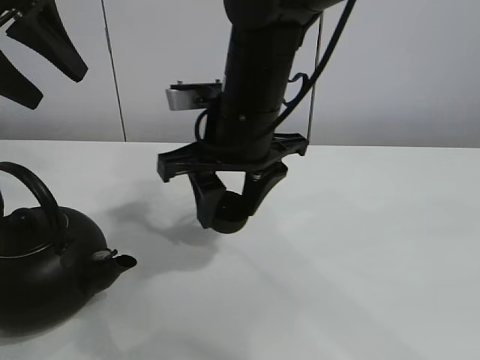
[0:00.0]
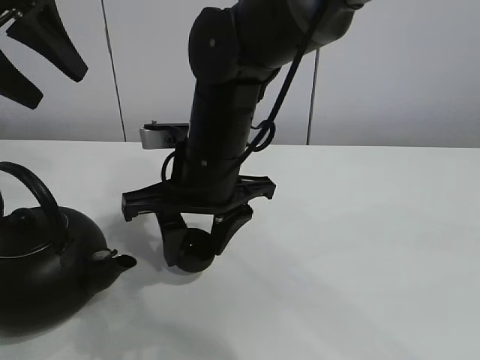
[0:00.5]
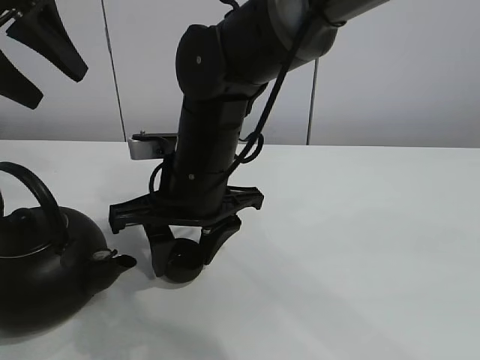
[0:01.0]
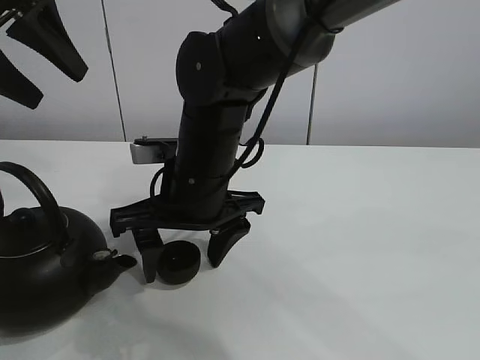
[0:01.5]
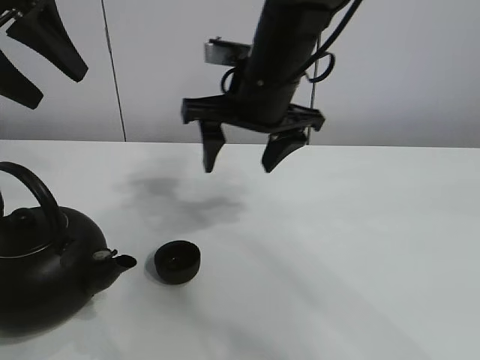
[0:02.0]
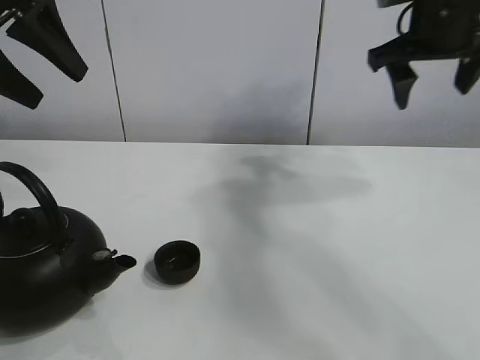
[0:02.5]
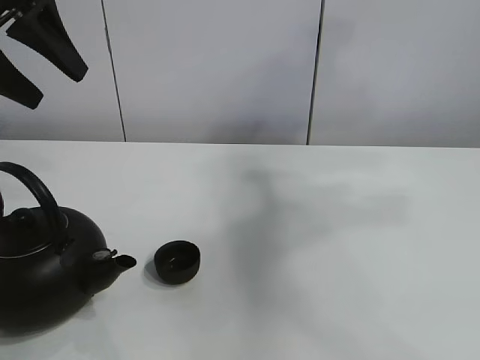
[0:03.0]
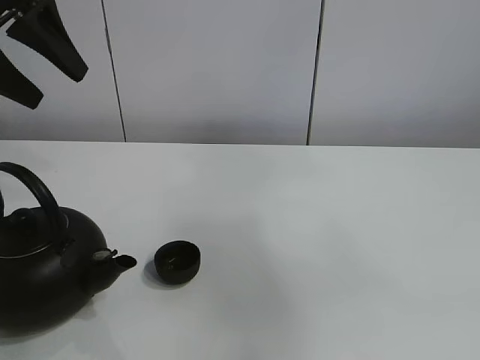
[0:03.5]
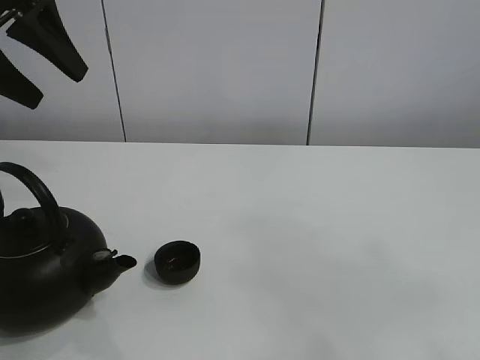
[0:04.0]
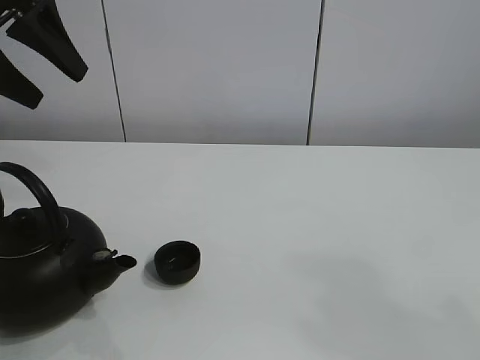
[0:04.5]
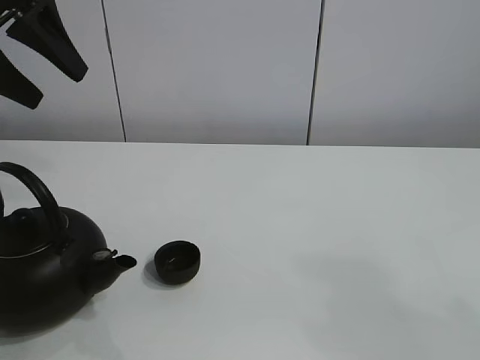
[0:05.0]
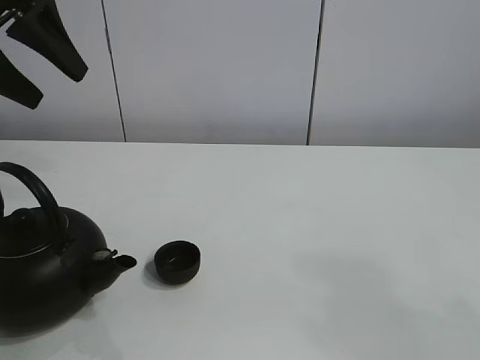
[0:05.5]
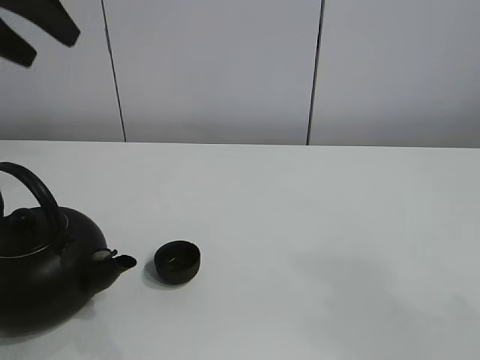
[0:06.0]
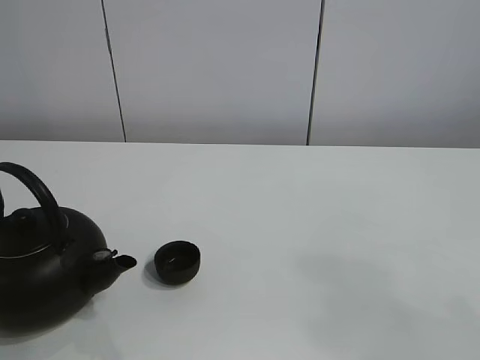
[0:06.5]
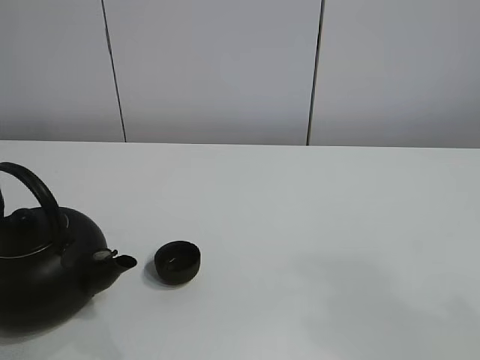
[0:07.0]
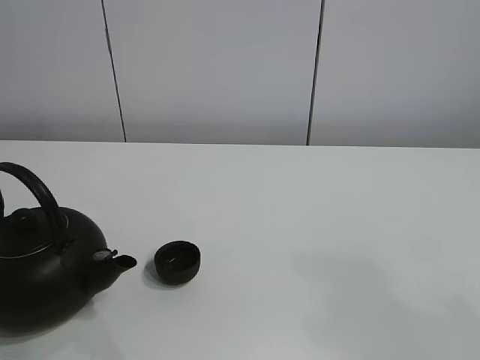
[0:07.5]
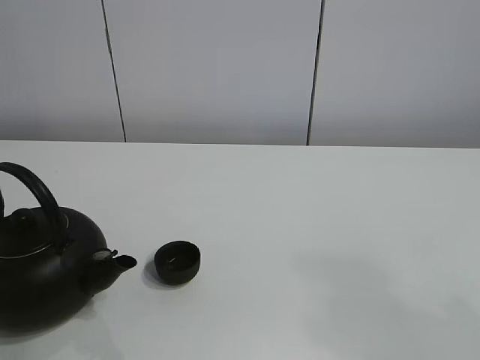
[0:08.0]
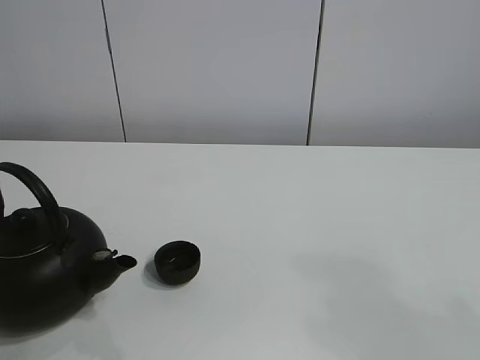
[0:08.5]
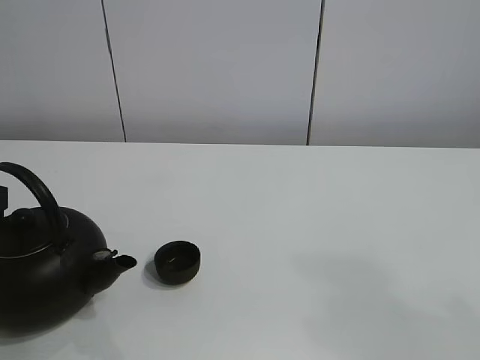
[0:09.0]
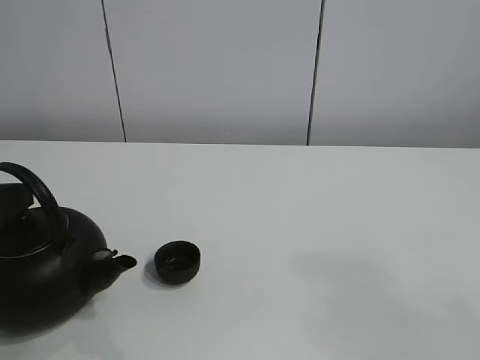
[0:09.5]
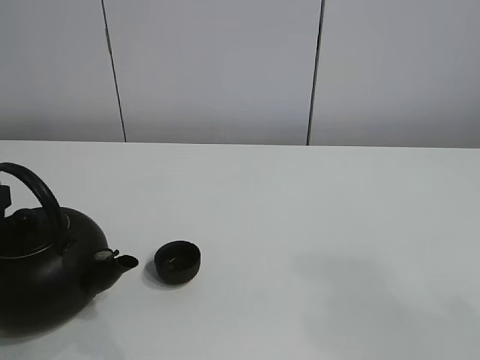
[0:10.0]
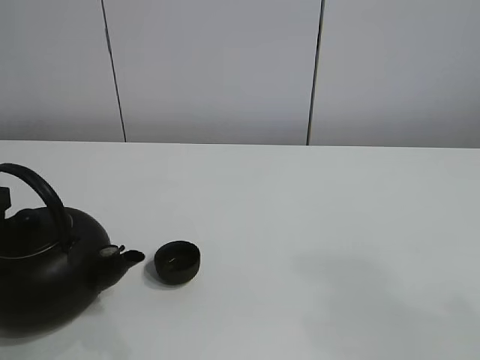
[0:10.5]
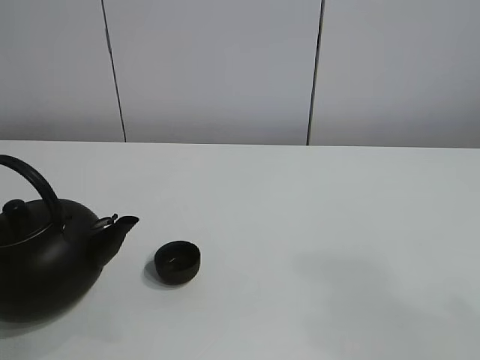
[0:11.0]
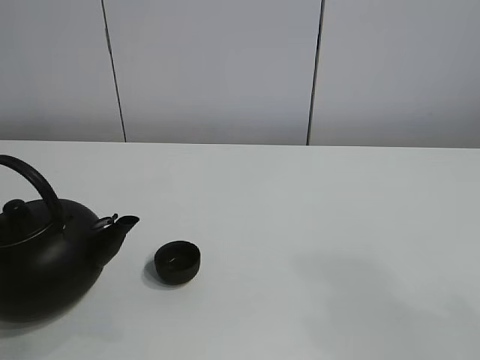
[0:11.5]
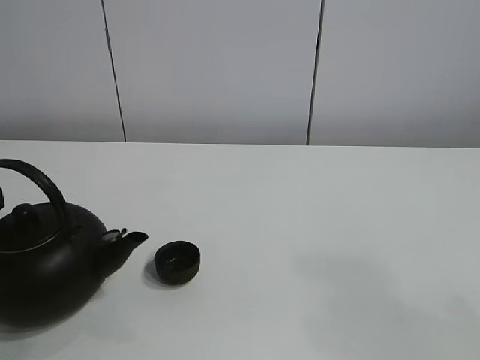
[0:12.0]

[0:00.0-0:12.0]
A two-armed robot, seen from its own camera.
Task of the whole recording: pour tea into the teacup.
Step, 0:00.0 to 0:01.0: Place the teacup in the center of view with the right gripper.
0:00.0 to 0:02.0: The right gripper reaches approximately 5 cm downward, then returns, and opens up.
0:02.0 to 0:04.0: The right gripper heads backward and to the right, covering approximately 50 cm.
0:06.0 to 0:08.0: The left gripper travels backward and downward by approximately 20 cm.
0:10.0 to 0:12.0: The grippers stay close to where they were, moving slightly.

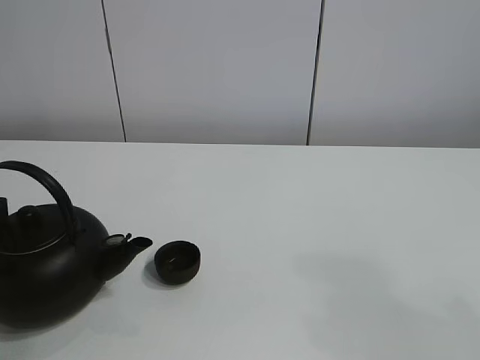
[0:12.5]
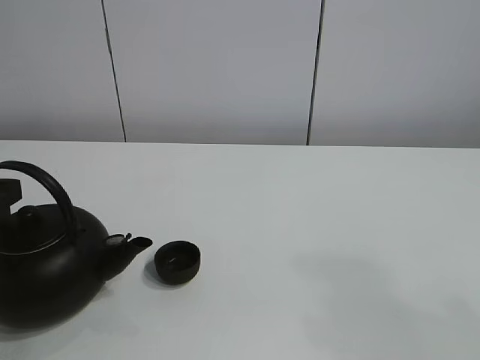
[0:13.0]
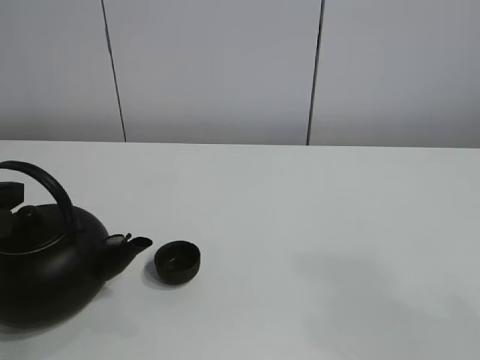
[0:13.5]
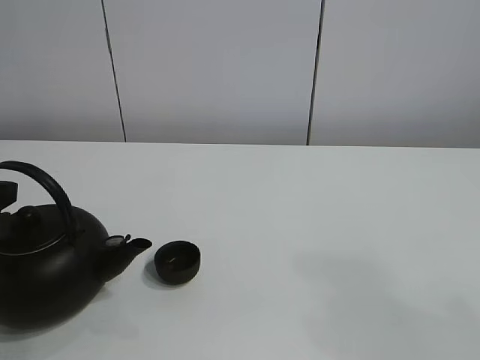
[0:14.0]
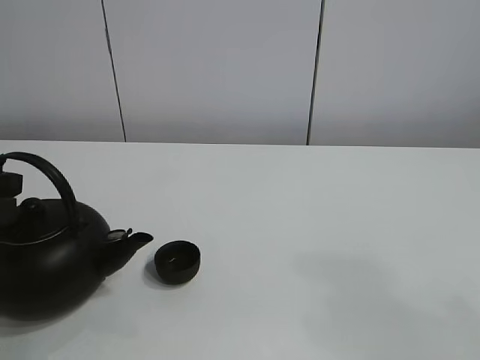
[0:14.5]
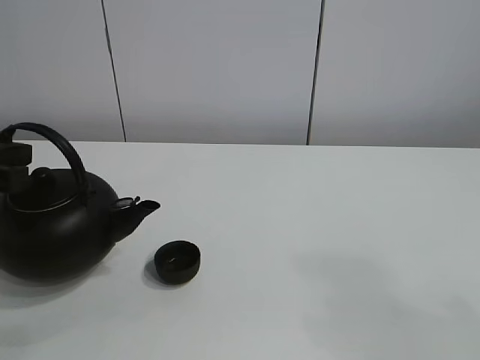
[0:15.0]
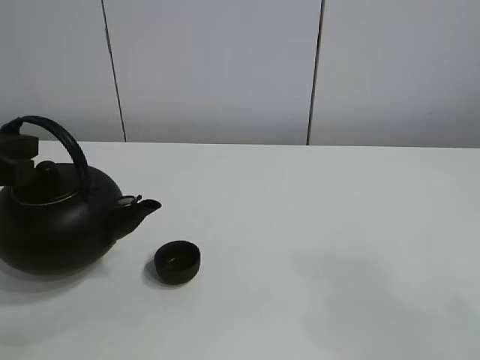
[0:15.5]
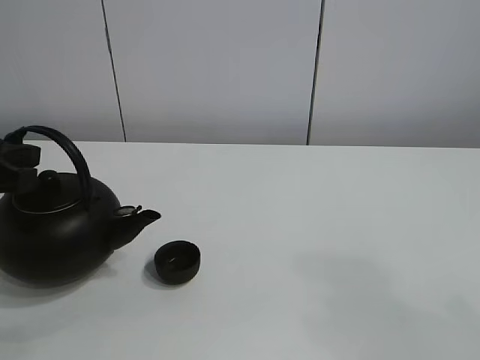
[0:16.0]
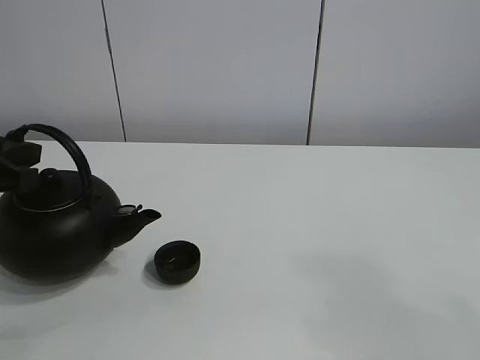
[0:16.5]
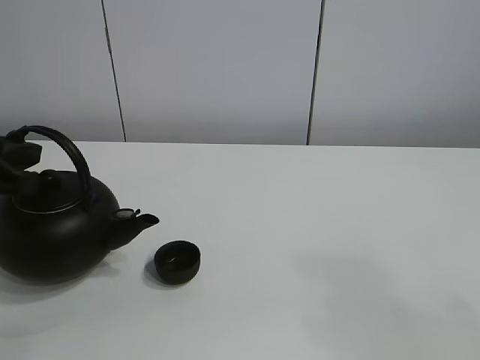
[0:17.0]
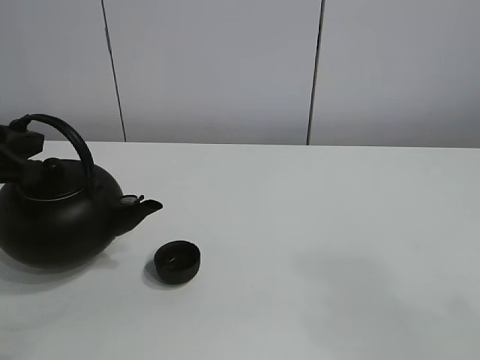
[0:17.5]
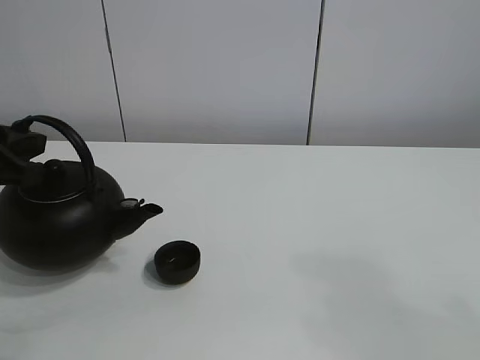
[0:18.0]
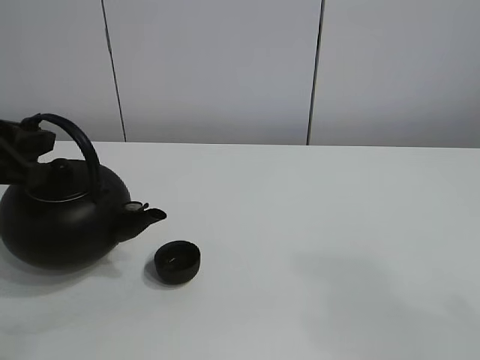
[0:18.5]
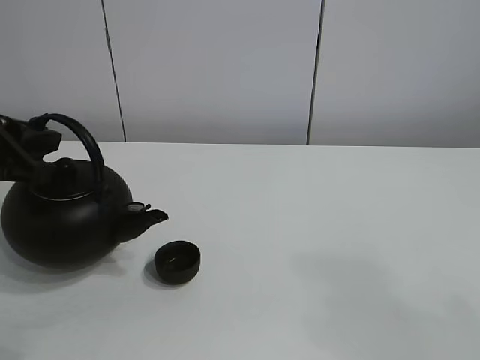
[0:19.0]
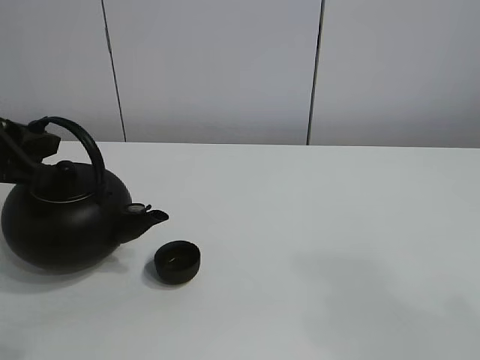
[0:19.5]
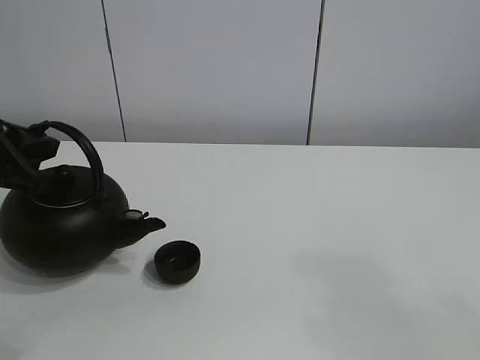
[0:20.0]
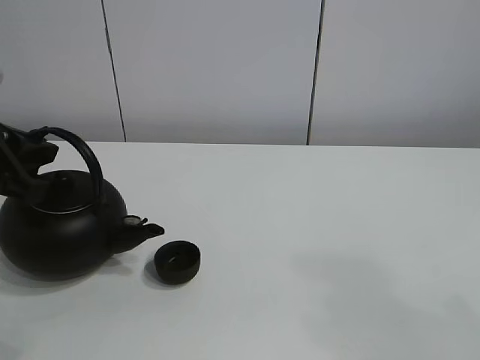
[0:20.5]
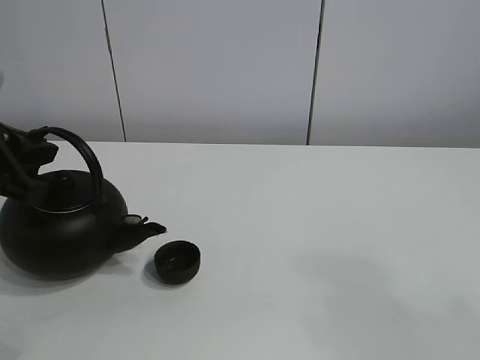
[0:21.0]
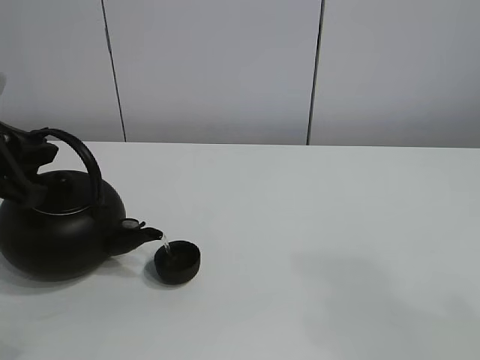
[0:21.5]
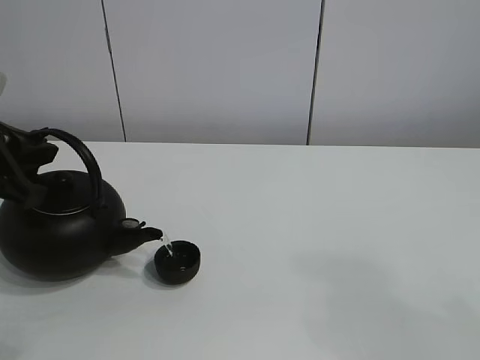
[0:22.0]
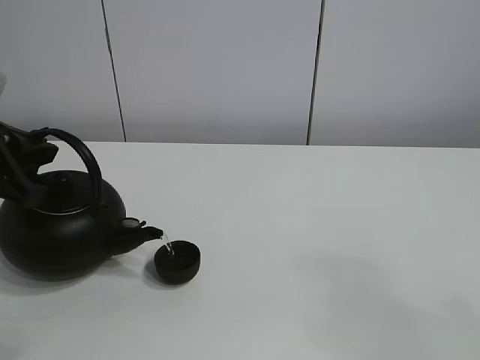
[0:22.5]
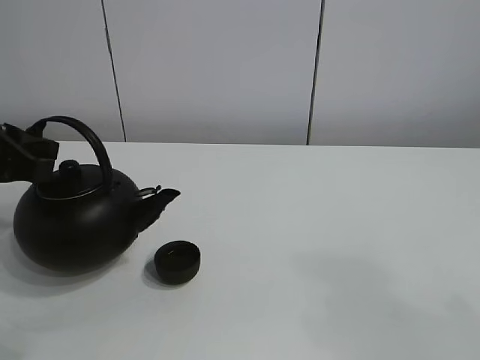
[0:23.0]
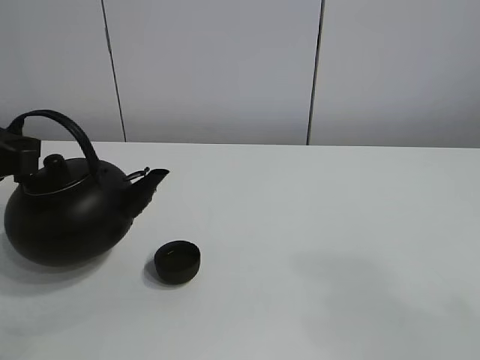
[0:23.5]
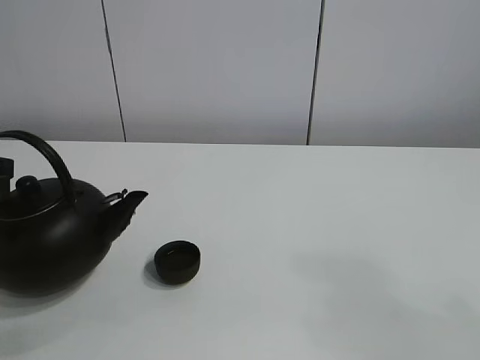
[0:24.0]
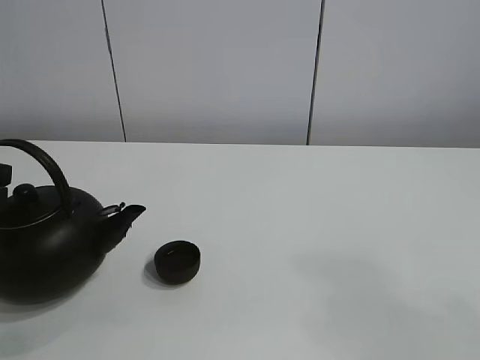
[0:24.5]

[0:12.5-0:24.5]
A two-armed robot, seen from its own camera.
Task of the whole recording: pour tea into the teacup.
Step, 0:12.5 to 0:14.5: Pick up the teapot with the left gripper.
Step, 0:15.0 to 0:22.5: Pour tea into the teacup with the left gripper.
0:12.5 to 0:14.5: The grippers make only small movements.
0:14.5 to 0:18.5: The grippers make only small movements.
0:18.5 to 0:20.5: The grippers stay close to where they were, moving slightly.
0:20.5 to 0:22.5: The two grippers keep their place.
0:22.5 to 0:24.5: The left gripper ends up roughly 5 cm from where it was.

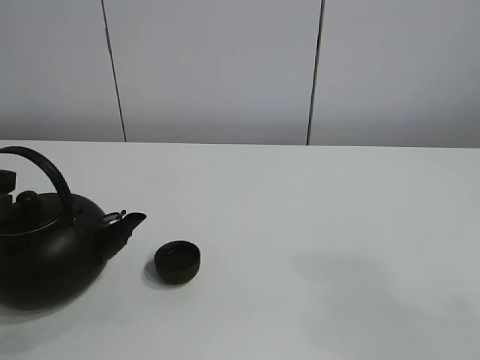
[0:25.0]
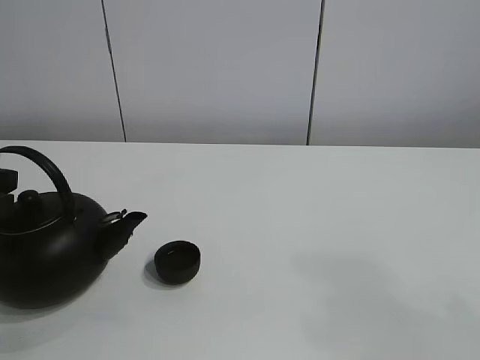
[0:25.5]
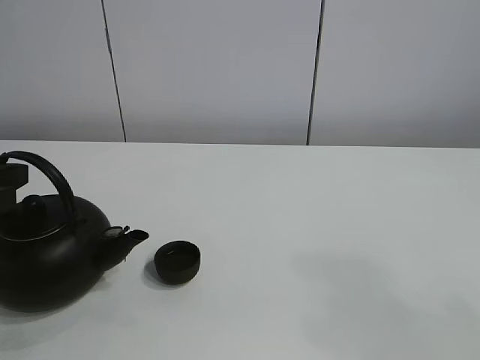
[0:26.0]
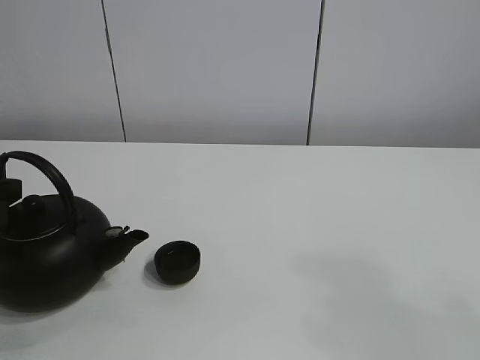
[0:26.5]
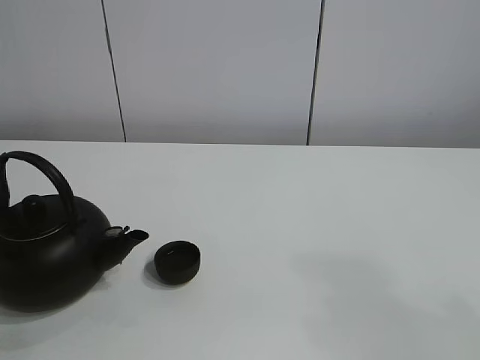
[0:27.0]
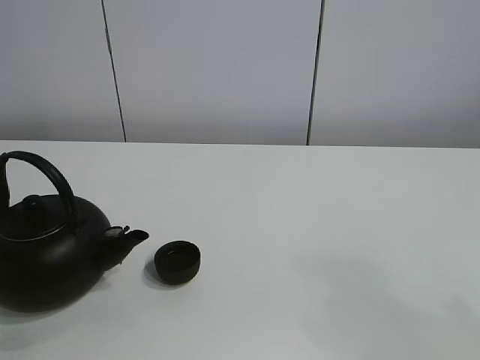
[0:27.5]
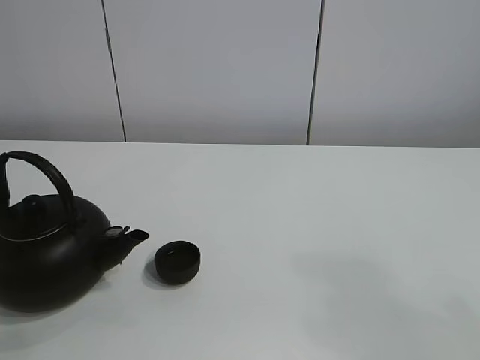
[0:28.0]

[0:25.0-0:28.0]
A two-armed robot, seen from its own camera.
Task of the whole recording: pour tea into the teacup.
0:25.0 to 0:26.5: The left gripper opens its fingers.
